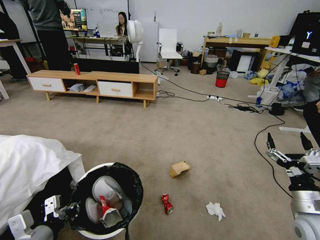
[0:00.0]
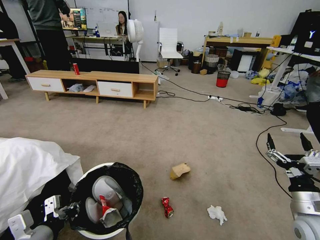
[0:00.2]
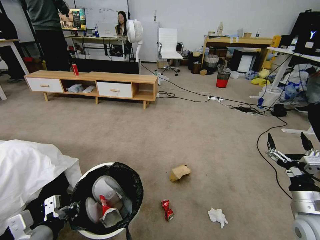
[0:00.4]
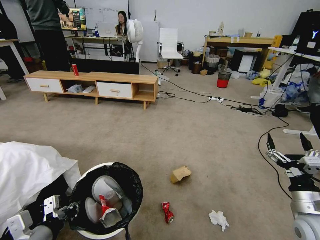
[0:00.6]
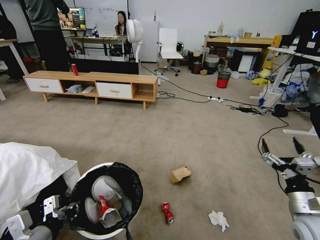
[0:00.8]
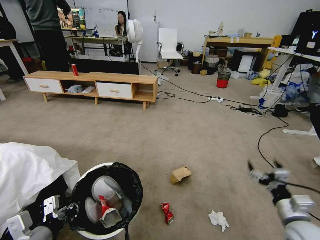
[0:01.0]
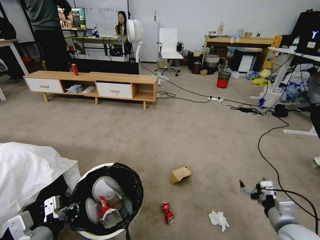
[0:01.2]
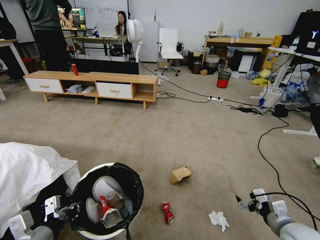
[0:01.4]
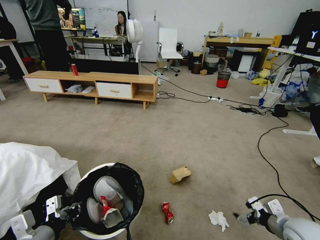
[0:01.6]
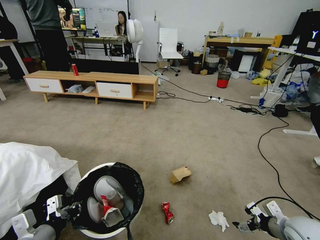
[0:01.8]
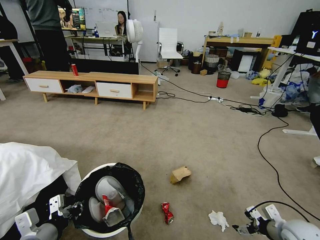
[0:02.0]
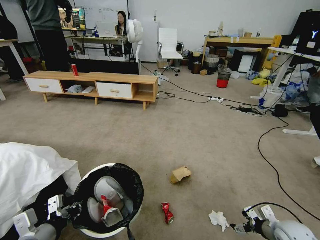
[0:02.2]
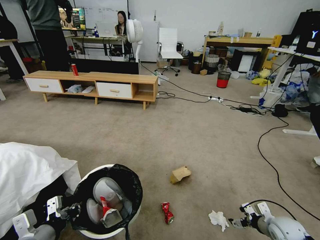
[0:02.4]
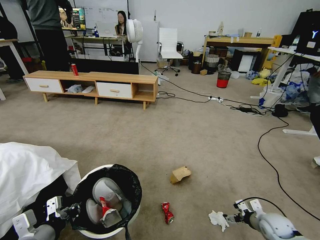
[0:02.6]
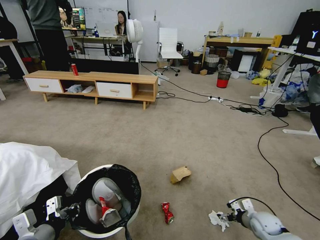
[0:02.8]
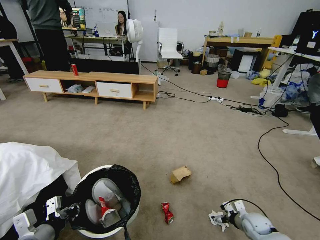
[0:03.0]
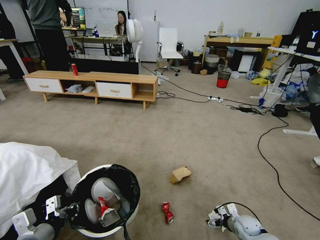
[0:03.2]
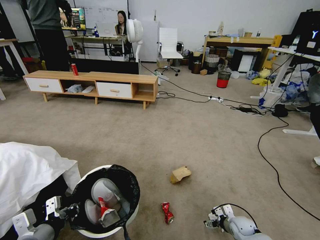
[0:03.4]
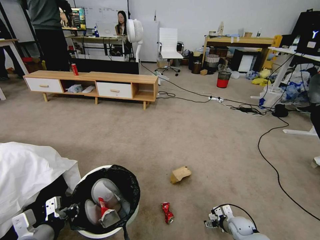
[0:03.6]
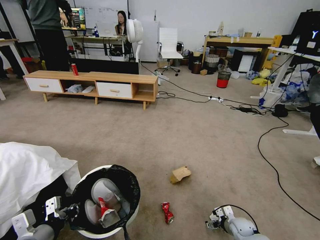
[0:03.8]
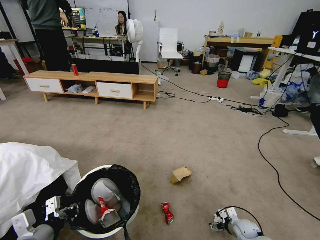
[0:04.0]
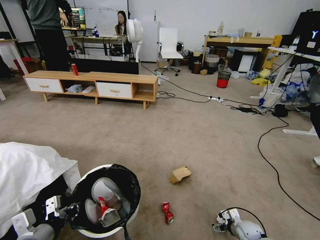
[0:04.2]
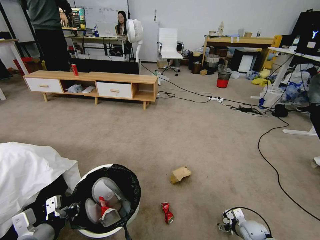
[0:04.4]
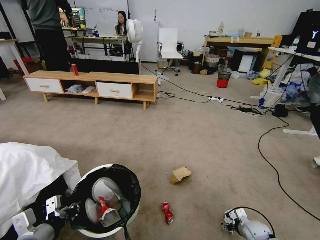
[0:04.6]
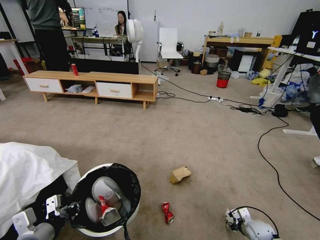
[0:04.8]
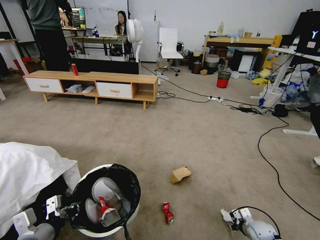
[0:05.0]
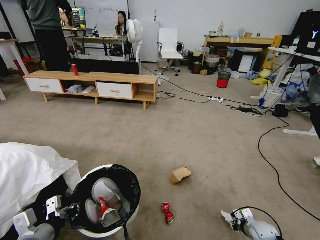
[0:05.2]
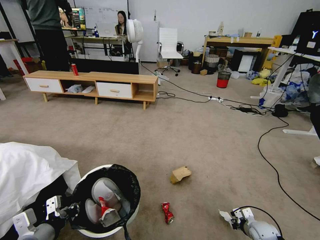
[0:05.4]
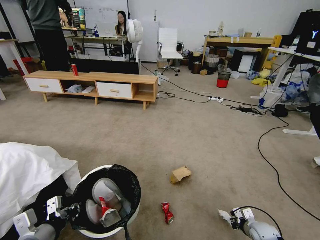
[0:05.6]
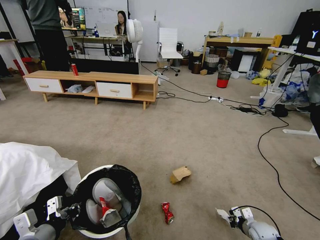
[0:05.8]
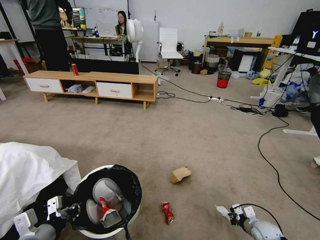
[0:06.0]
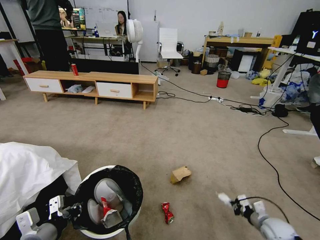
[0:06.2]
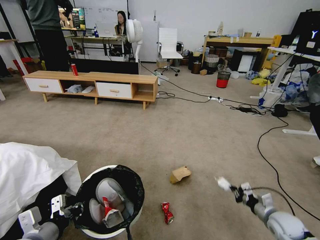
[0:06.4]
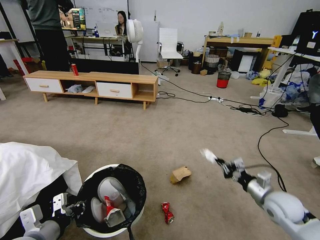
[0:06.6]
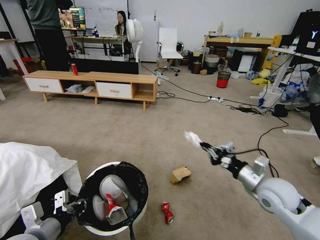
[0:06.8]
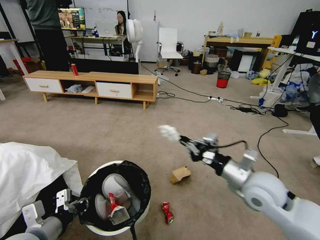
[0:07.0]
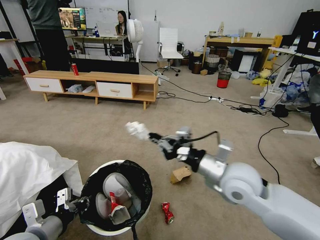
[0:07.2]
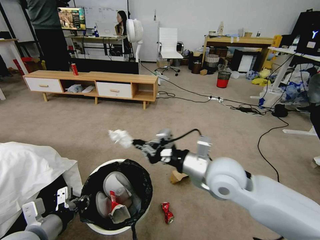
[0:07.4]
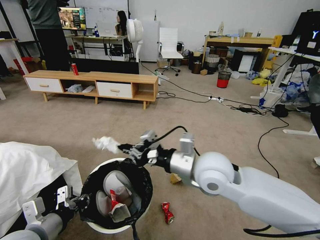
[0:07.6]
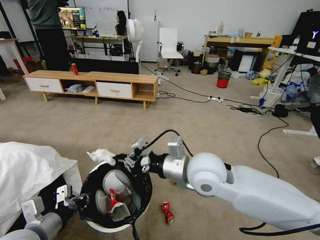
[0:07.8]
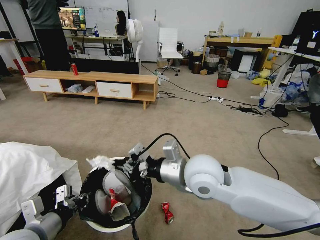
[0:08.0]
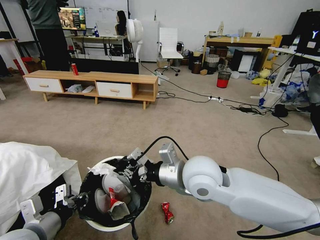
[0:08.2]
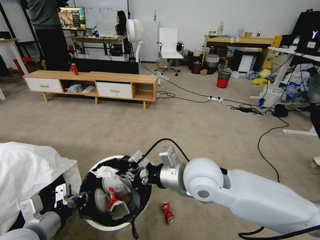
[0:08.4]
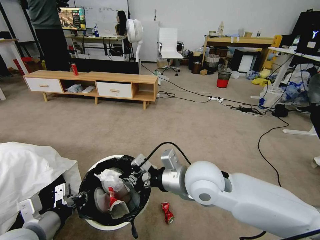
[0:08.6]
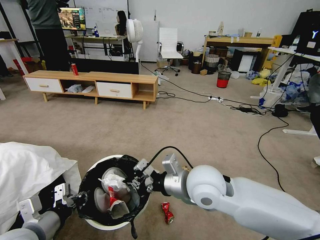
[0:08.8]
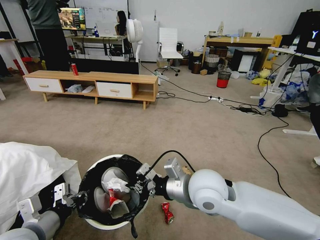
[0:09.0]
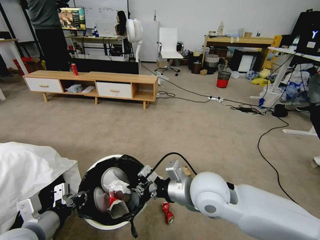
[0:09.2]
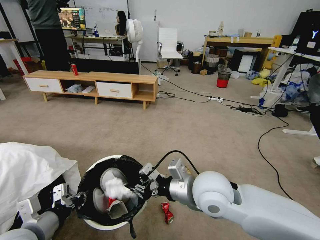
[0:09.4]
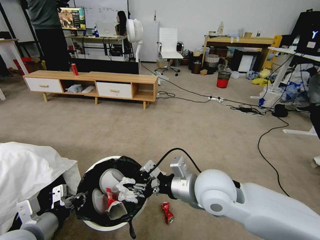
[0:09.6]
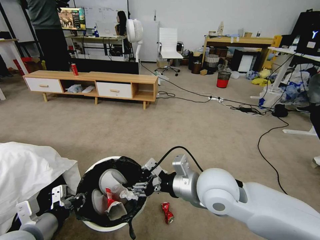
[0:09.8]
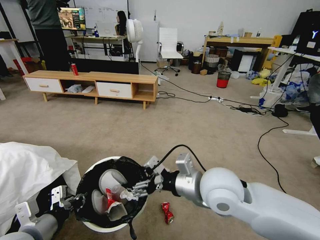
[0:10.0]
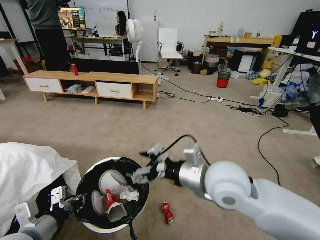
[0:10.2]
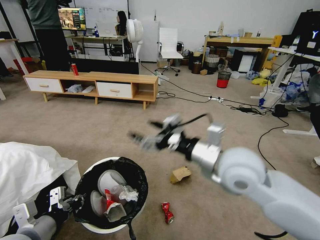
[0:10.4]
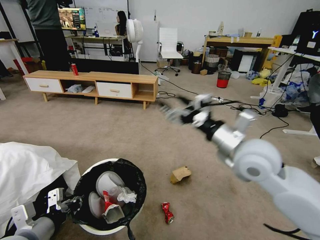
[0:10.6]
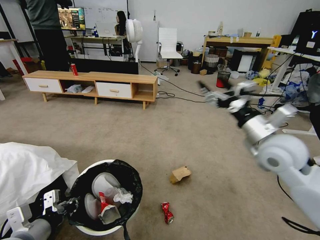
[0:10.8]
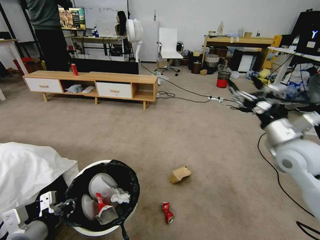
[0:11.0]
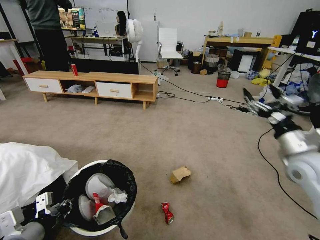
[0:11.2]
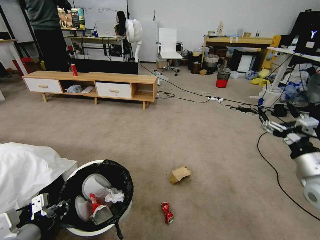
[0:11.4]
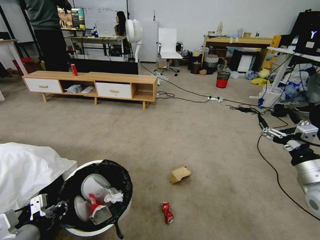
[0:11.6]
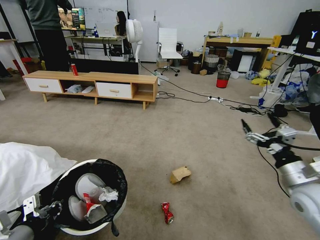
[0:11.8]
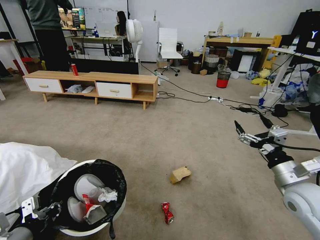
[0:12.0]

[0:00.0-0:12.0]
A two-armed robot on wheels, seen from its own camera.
Task of the whole recording: Pick up the trash bin, then pick up the garbage from the floor and place it into the trash bin.
0:00.0 to 0:01.6: The right gripper travels downward by roughly 5 cm.
0:01.6 to 0:03.0: The right gripper travels downward and forward by approximately 20 cm.
0:03.0 to 0:04.4: The right gripper heads downward, covering roughly 5 cm.
0:04.4 to 0:06.0: The right gripper shifts by some 5 cm, and closes up.
0:06.0 to 0:07.6: The right gripper travels upward and to the left by approximately 50 cm.
0:09.0 to 0:10.4: The right gripper goes roughly 10 cm upward and to the right, and opens up.
0:10.4 to 0:12.0: The right gripper shifts approximately 25 cm to the right and downward.

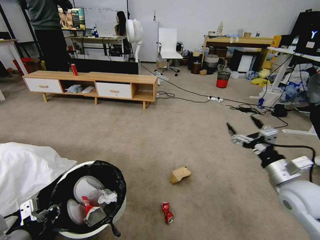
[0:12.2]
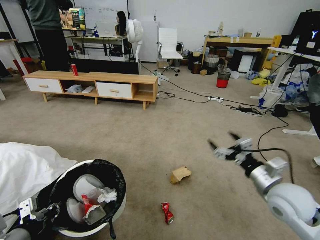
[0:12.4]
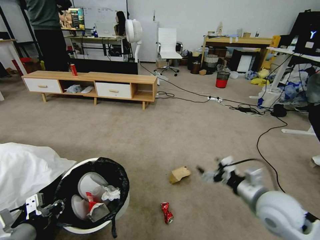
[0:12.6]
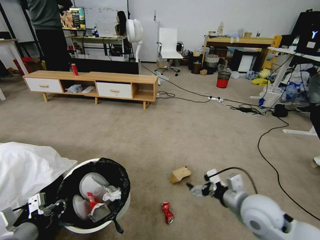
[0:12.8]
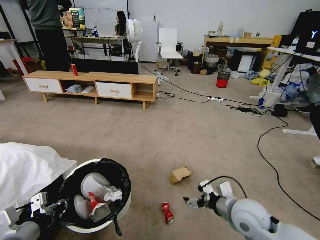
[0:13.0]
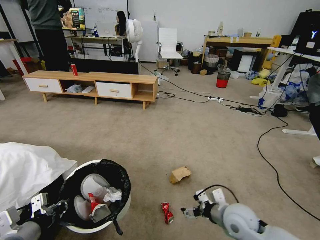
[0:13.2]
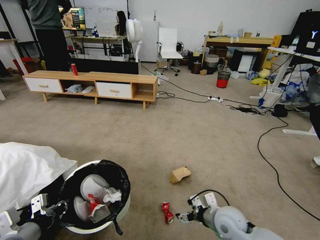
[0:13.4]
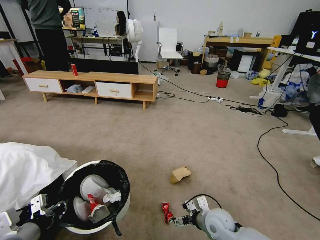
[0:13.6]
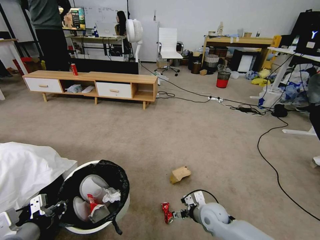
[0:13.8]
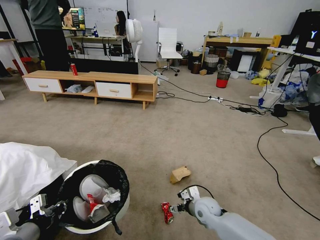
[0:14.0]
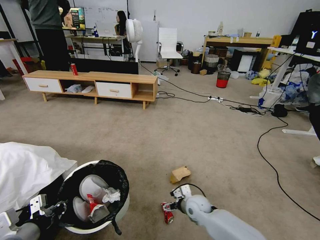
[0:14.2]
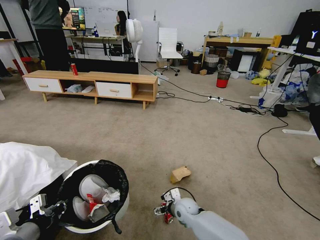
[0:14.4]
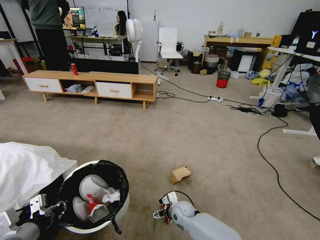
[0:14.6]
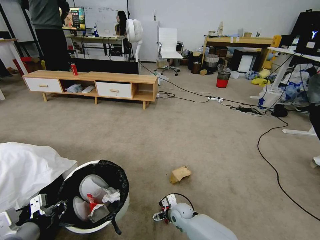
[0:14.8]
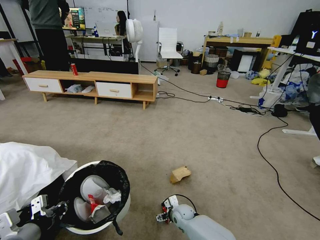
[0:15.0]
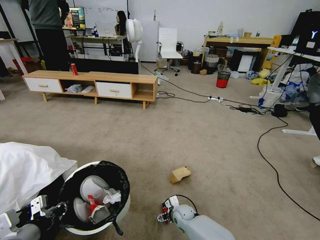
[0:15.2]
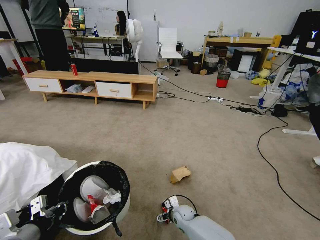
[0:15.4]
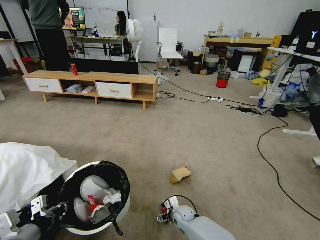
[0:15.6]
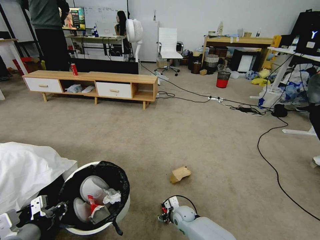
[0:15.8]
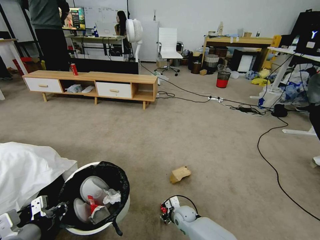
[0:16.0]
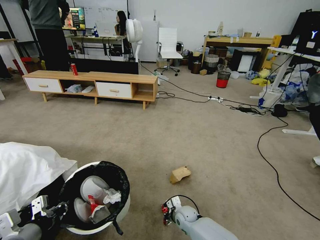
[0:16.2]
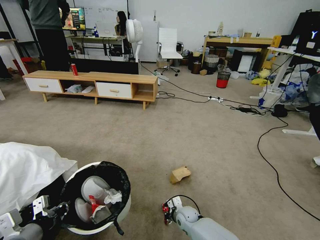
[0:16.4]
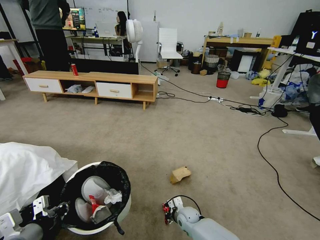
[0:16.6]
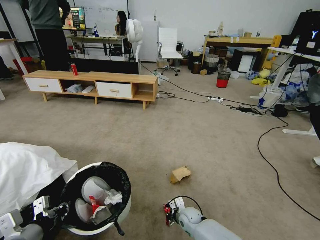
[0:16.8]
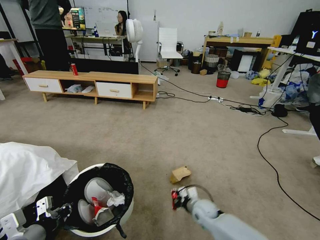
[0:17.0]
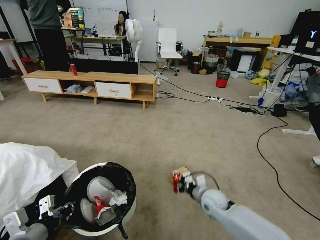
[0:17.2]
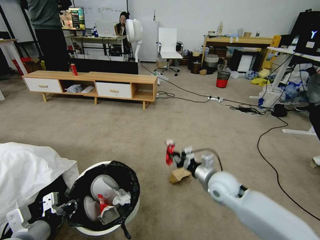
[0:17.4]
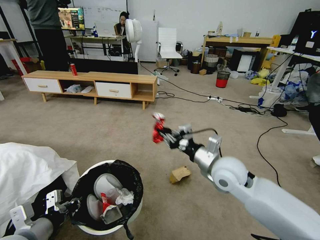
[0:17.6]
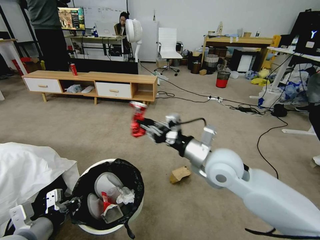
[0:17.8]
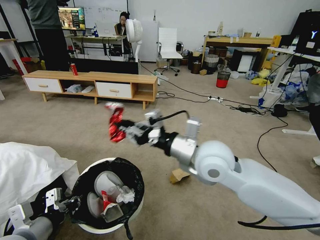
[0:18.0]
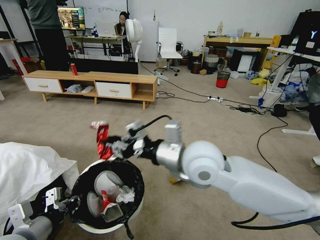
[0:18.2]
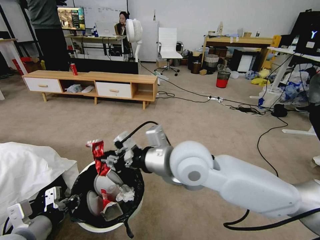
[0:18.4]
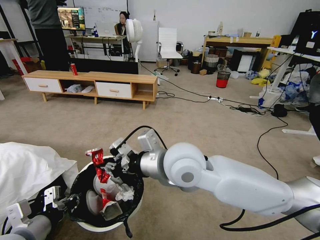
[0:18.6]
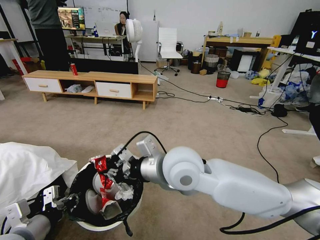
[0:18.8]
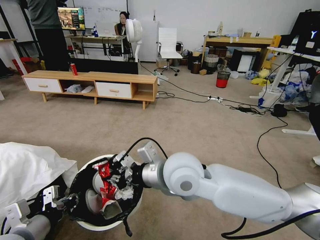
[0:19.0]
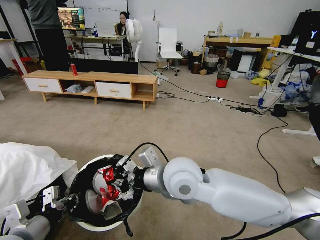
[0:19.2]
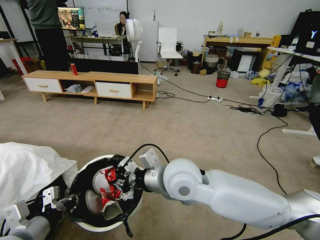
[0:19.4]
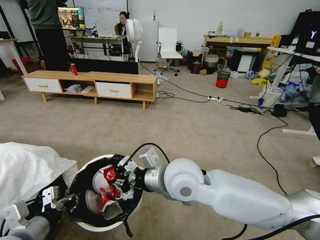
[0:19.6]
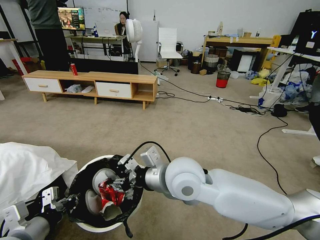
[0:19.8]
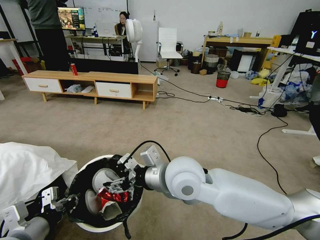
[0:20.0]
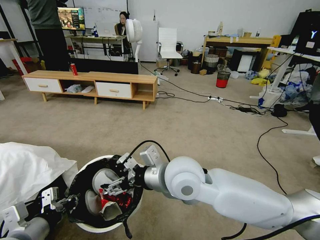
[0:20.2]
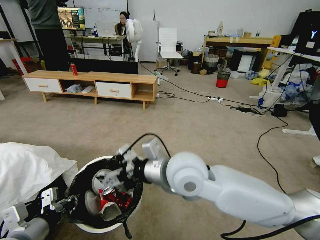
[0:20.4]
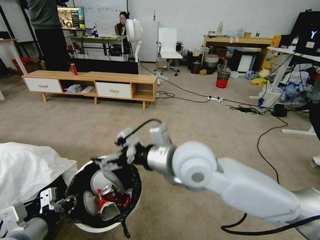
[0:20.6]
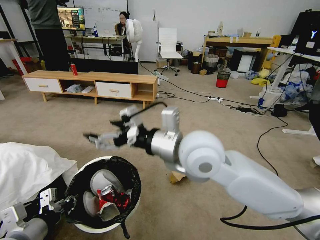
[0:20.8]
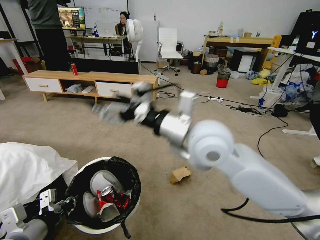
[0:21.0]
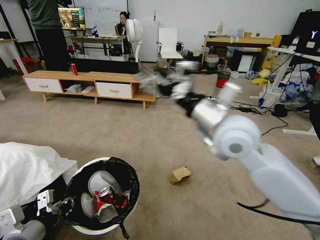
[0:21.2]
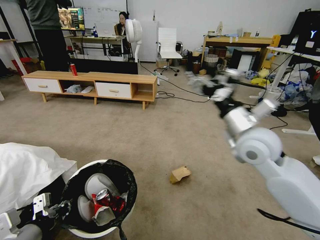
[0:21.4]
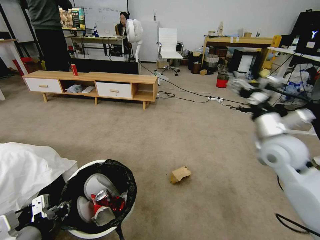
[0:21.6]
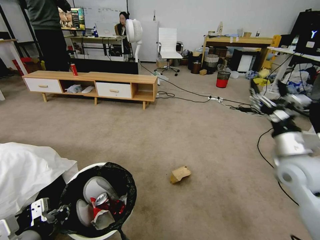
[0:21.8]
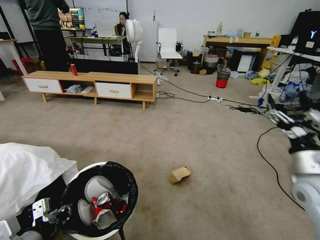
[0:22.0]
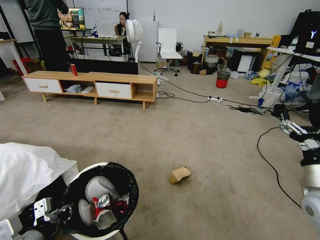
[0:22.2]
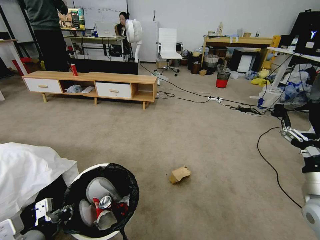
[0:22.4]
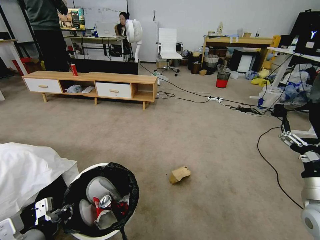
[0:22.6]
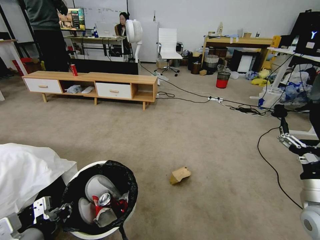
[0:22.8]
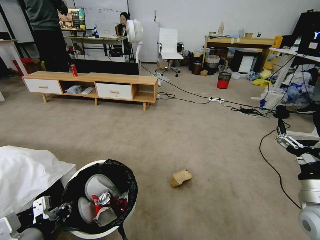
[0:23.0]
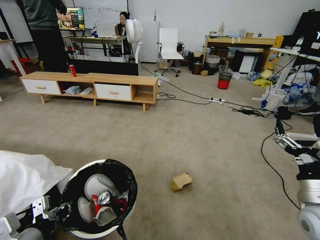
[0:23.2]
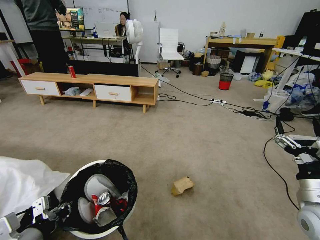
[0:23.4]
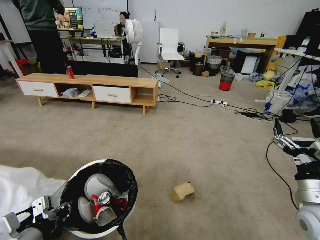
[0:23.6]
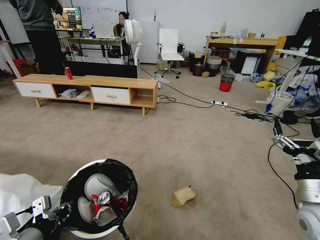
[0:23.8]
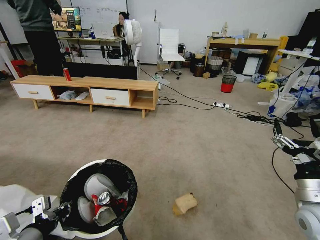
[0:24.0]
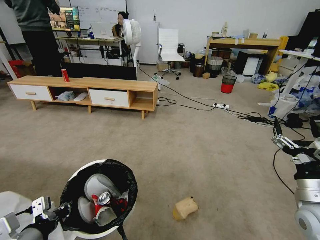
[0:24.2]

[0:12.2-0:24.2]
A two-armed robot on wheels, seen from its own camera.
Task of the whole recording: Pick up the trash bin, then pick up the garbage from the floor and place it into the trash bin.
0:12.2 to 0:13.8: The right gripper moves downward and to the left, approximately 30 cm.
0:13.8 to 0:15.2: The right gripper goes some 15 cm downward and to the left.
0:15.2 to 0:16.6: The right gripper closes its fingers.
0:16.6 to 0:18.2: The right gripper heads upward, covering approximately 50 cm.
0:18.2 to 0:19.8: The right gripper moves roughly 5 cm.
0:19.8 to 0:21.2: The right gripper goes approximately 15 cm to the right and upward, and opens.
0:21.2 to 0:22.6: The right gripper is displaced to the right, downward and backward by roughly 30 cm.
